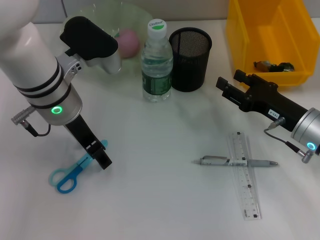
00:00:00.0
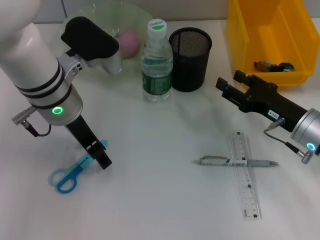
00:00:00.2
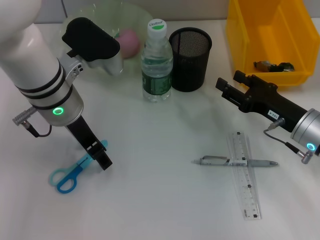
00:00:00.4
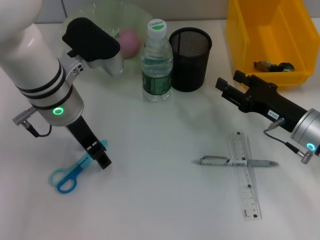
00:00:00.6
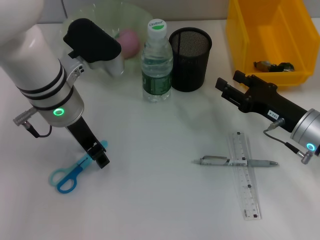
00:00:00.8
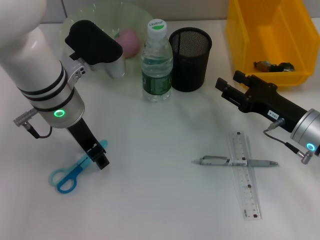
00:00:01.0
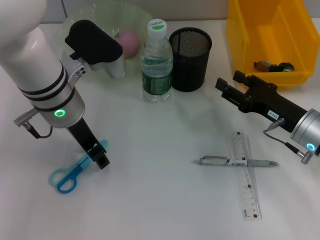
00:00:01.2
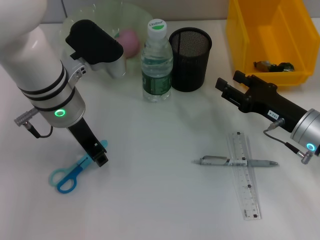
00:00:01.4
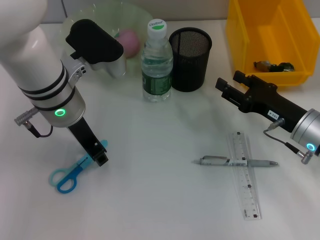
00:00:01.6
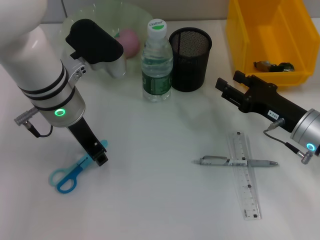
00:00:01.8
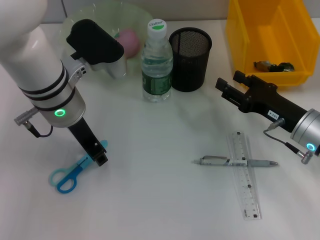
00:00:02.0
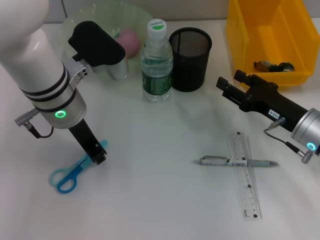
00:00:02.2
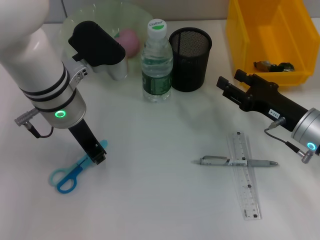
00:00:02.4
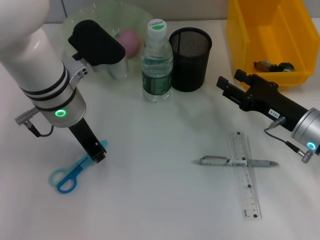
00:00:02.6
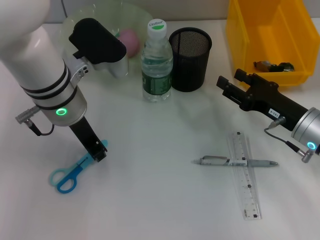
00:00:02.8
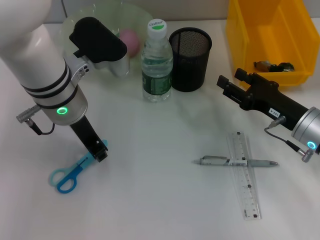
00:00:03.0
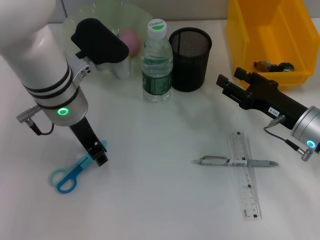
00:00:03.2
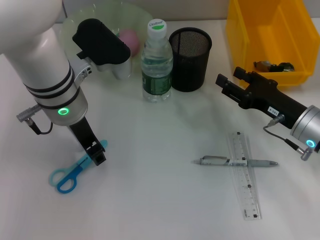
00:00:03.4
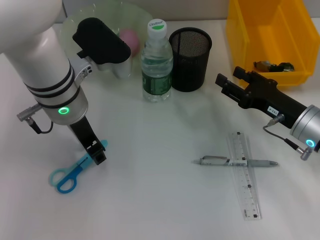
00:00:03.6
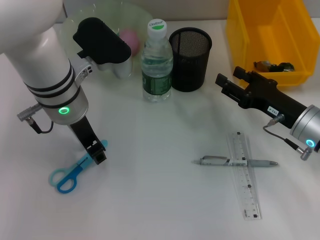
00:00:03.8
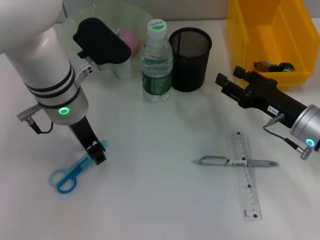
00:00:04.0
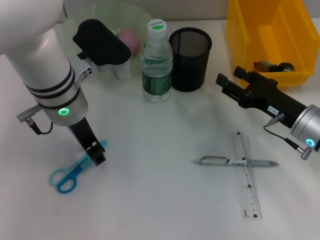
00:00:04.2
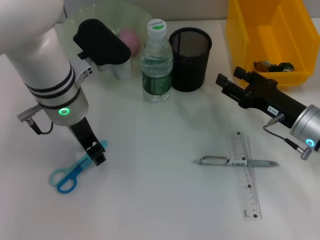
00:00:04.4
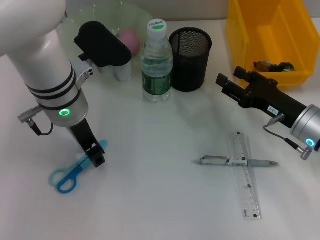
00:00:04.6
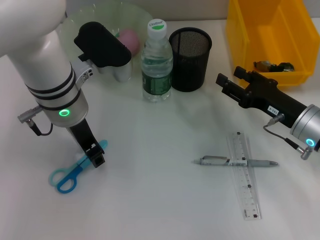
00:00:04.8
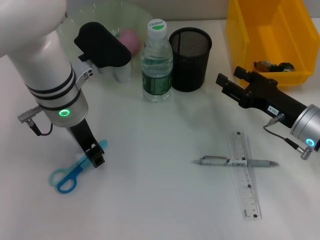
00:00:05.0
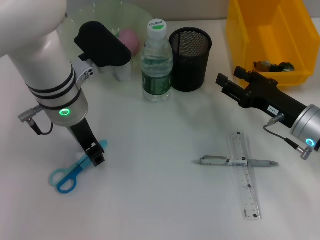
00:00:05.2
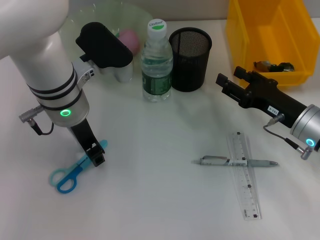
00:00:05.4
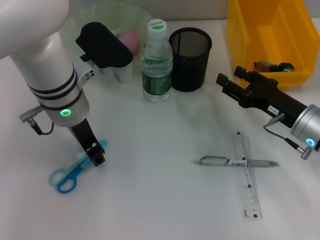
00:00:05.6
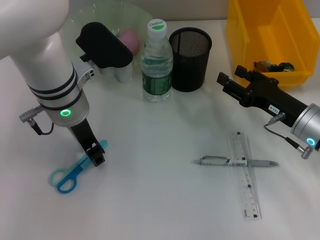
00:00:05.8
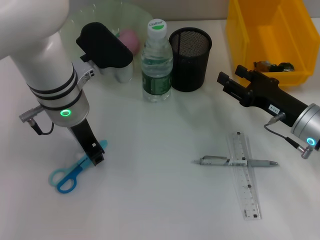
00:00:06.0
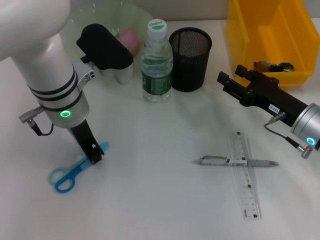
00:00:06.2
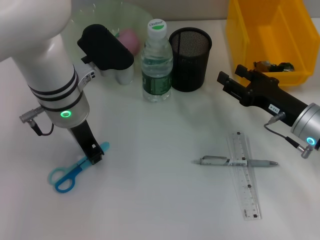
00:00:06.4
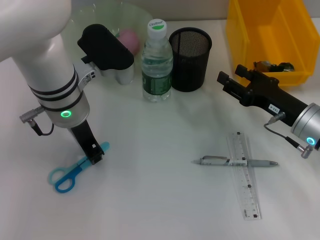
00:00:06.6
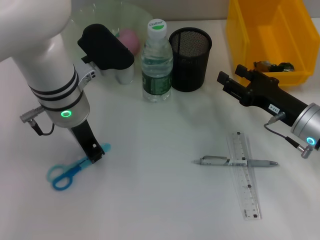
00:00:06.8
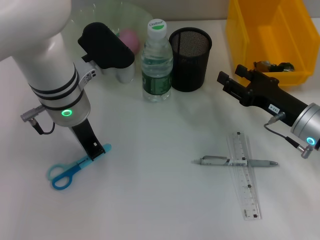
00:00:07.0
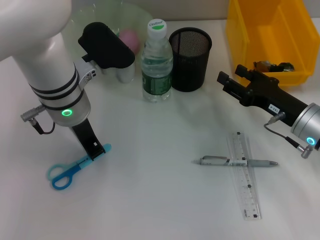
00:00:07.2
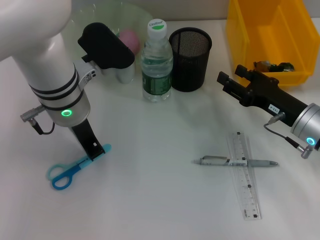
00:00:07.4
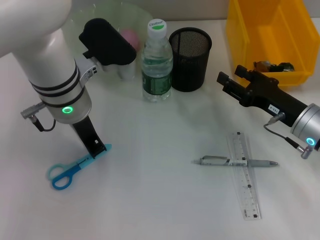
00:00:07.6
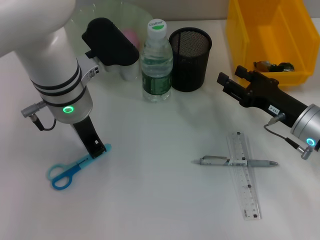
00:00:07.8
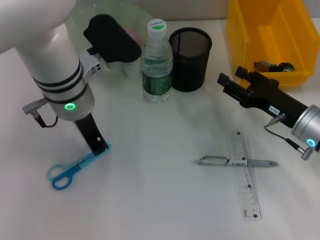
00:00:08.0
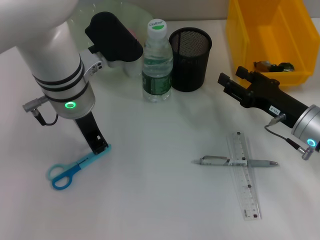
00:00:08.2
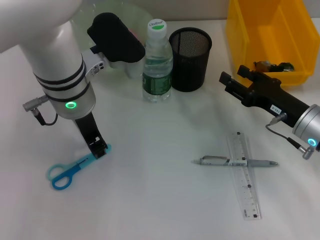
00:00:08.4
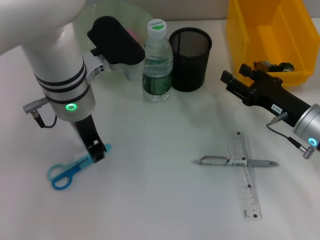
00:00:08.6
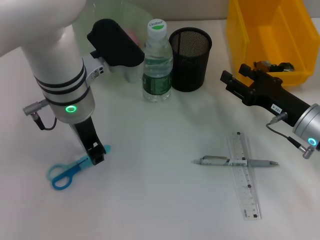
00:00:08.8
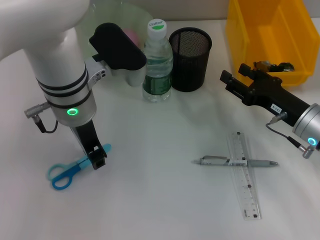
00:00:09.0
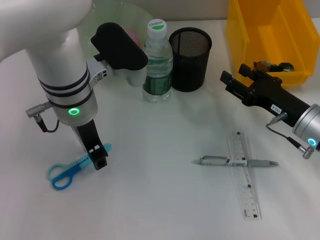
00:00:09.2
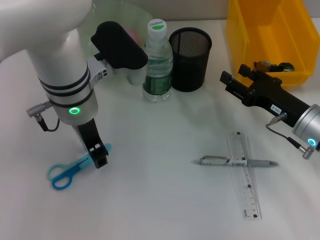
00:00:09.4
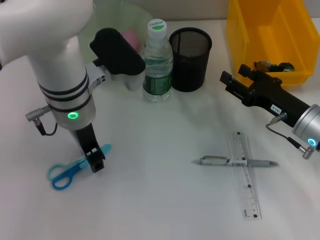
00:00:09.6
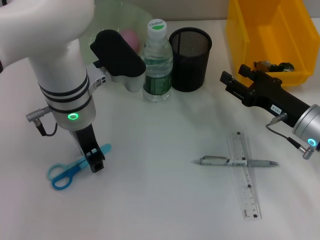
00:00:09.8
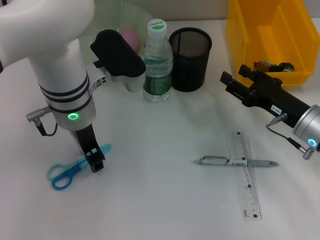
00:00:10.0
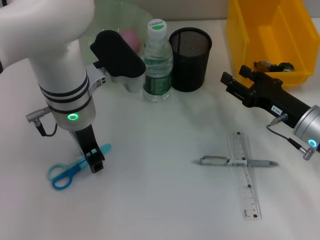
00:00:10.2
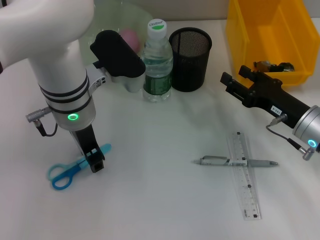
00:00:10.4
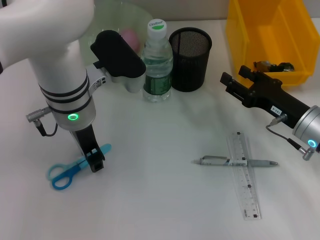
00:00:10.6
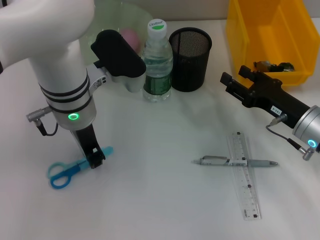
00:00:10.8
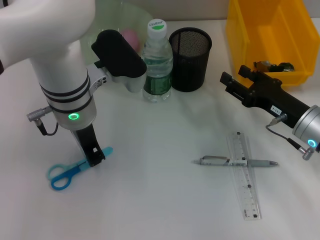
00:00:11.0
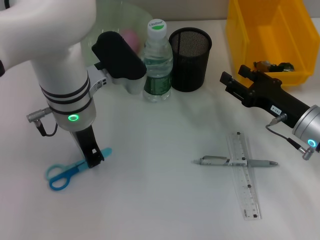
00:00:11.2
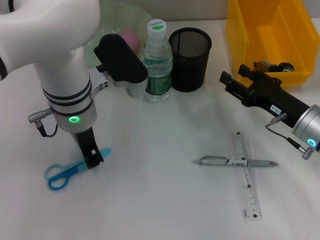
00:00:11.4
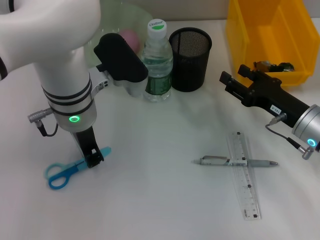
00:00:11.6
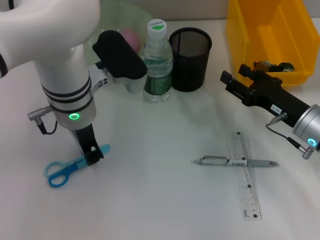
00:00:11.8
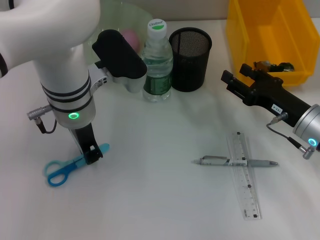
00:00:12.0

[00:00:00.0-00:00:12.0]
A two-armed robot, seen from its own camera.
00:00:00.0 to 00:00:01.6: The left gripper closes its fingers.
00:00:01.6 to 00:00:03.0: The left gripper closes its fingers.
00:00:03.0 to 00:00:06.0: Both grippers stay put.
00:00:06.0 to 00:00:07.6: The left gripper closes its fingers.
00:00:07.6 to 00:00:09.0: The left gripper opens.
00:00:09.0 to 00:00:10.4: The two grippers keep their place.
00:00:10.4 to 00:00:12.0: The left gripper closes up.

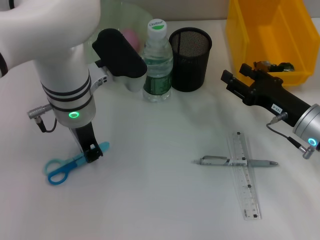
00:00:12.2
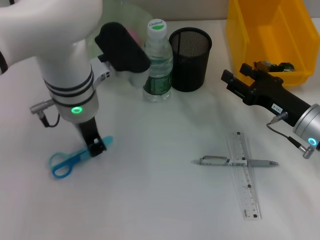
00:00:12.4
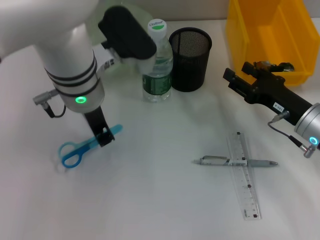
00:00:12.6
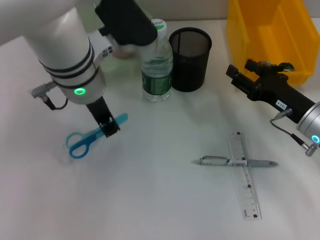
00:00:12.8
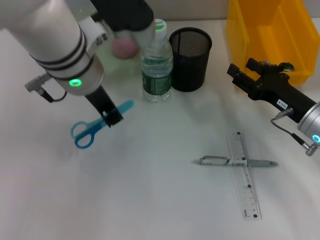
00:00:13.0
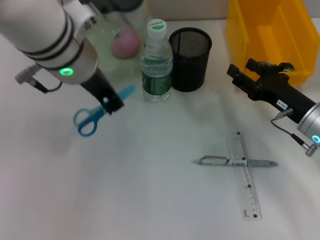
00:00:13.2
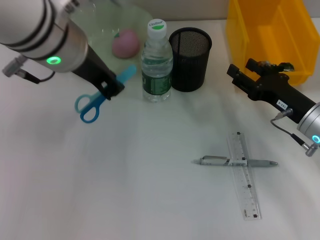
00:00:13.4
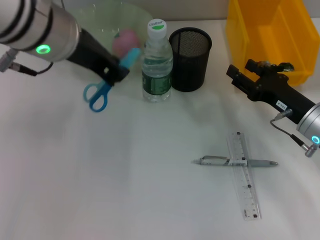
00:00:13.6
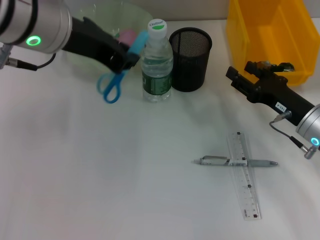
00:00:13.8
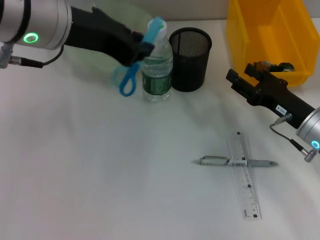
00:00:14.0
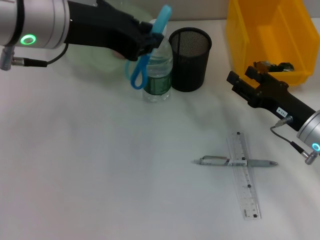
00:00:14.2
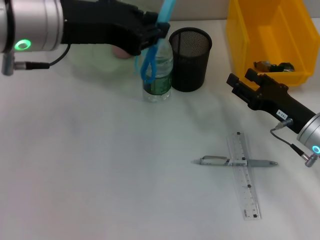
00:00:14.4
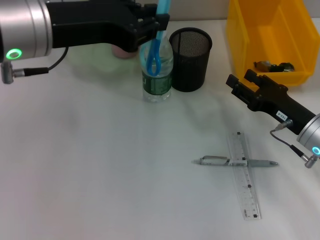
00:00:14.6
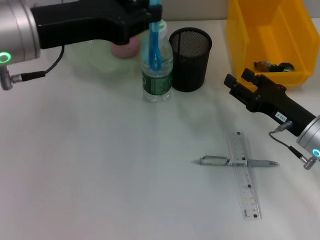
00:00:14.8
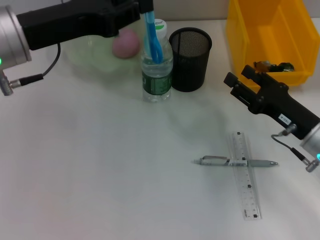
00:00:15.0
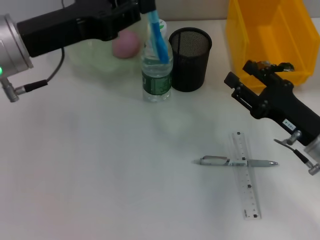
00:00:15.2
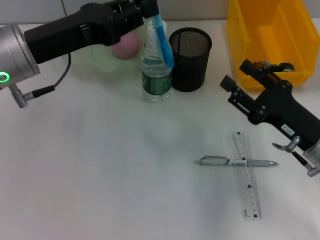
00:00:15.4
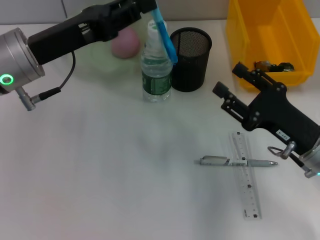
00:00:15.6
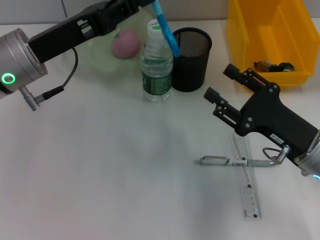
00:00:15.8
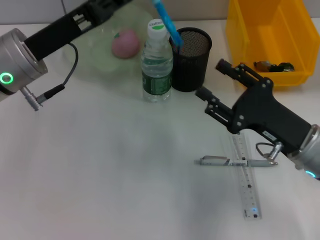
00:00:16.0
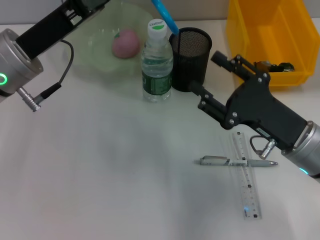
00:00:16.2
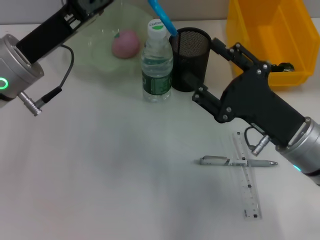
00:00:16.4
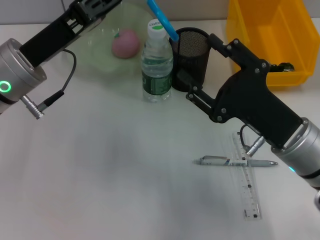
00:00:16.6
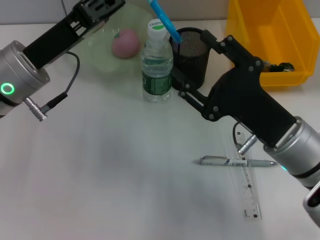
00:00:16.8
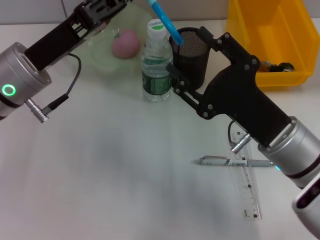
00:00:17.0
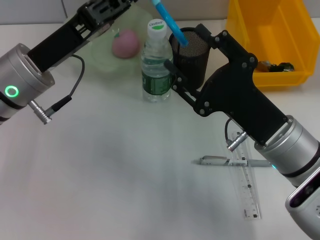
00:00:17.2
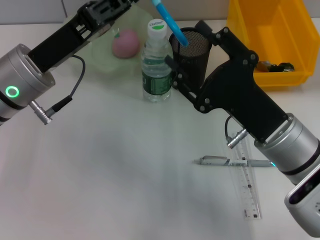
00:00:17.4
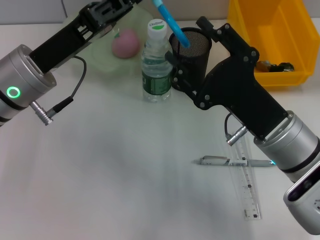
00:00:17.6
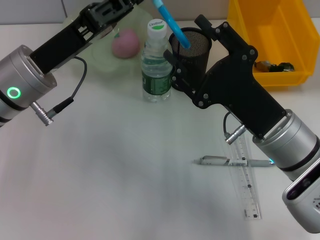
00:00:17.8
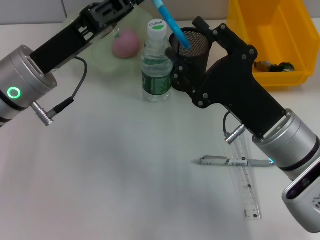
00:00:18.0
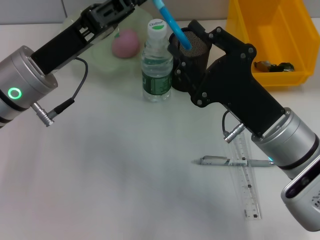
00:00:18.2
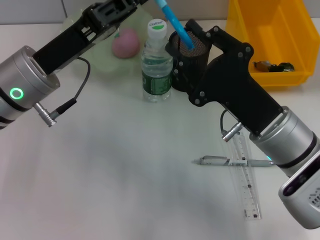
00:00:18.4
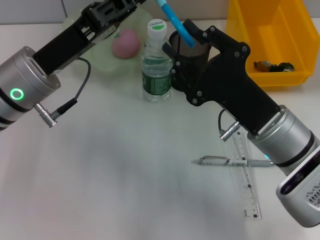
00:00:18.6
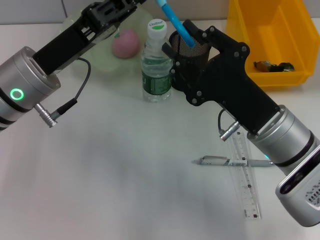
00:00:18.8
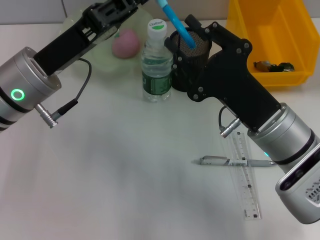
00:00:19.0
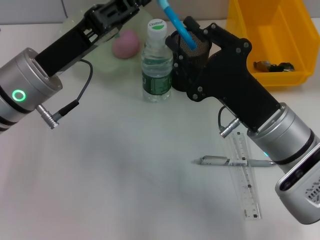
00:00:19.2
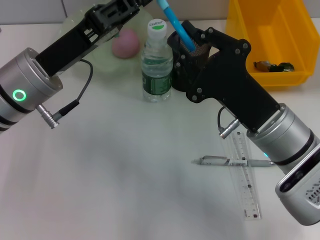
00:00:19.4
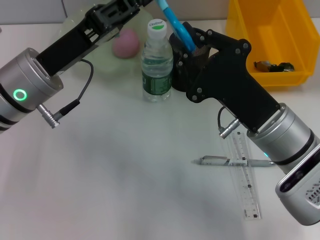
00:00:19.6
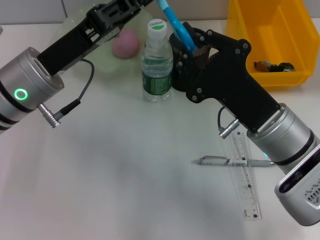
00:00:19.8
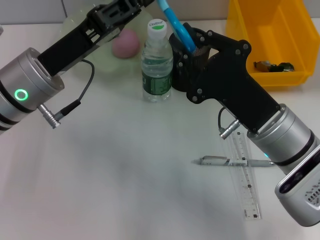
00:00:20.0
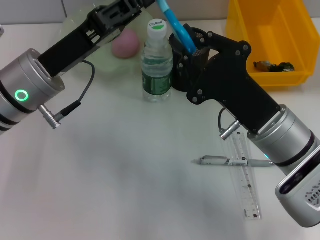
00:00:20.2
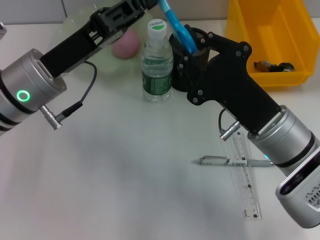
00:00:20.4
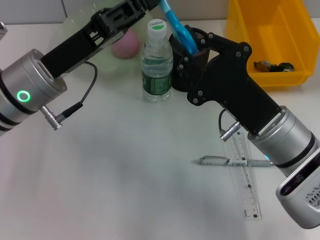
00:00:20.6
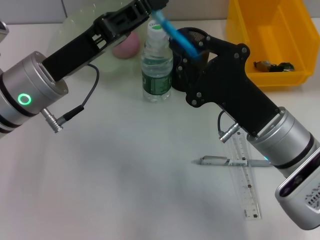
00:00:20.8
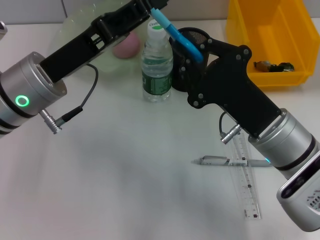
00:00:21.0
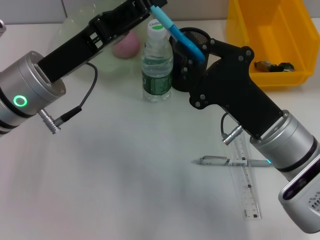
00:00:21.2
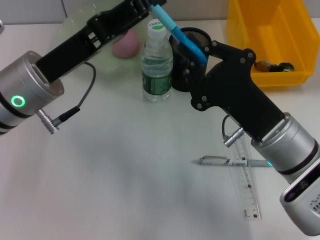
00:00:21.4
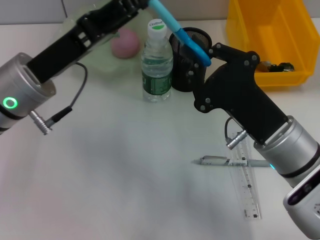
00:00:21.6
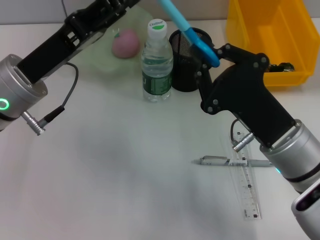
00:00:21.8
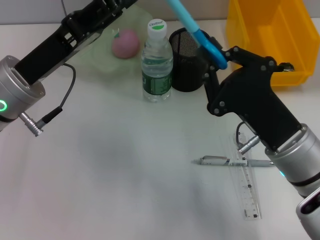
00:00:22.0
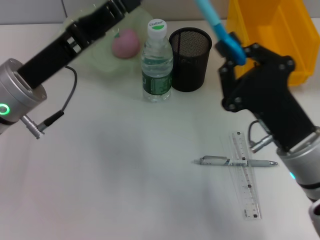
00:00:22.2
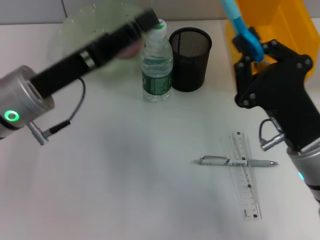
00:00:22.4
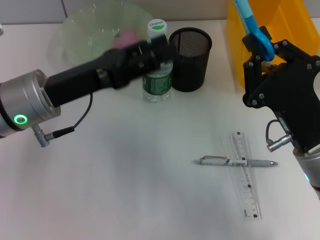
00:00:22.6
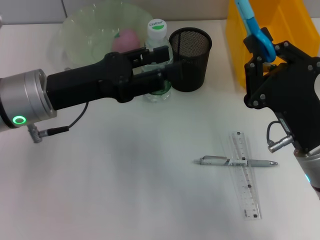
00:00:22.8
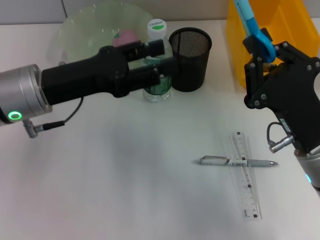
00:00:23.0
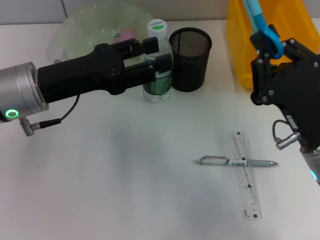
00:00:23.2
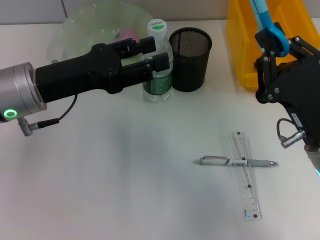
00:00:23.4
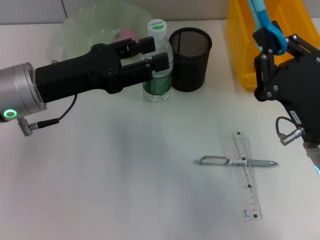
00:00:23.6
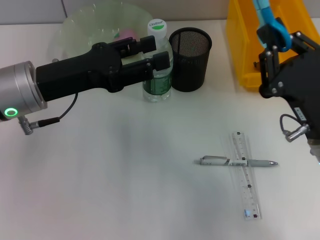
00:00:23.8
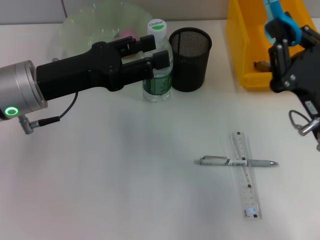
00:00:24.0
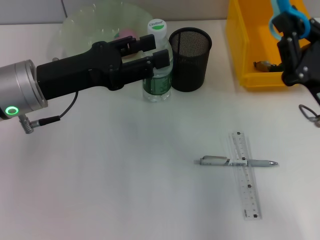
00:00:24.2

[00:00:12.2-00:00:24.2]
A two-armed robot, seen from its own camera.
Step, 00:00:12.4 to 00:00:20.2: Pass the blue scissors from the left hand to the right hand.
00:00:12.2 to 00:00:13.8: The left gripper moves upward, some 10 cm.
00:00:13.8 to 00:00:15.2: The left gripper shifts some 10 cm downward and to the left.
00:00:15.2 to 00:00:16.6: The right gripper goes roughly 5 cm to the left; the left gripper goes roughly 5 cm downward.
00:00:16.6 to 00:00:18.2: There are only small adjustments of the grippers.
00:00:18.2 to 00:00:19.8: The right gripper closes up.
00:00:19.8 to 00:00:21.2: The left gripper opens its fingers.
00:00:22.6 to 00:00:24.2: The right gripper is displaced to the right by some 5 cm.
